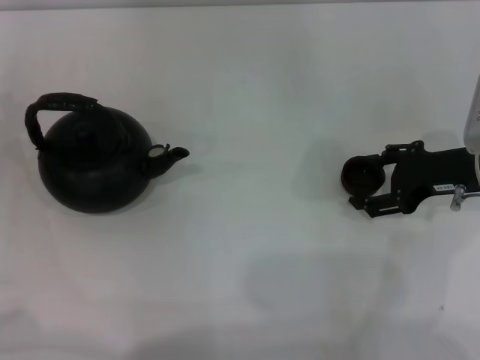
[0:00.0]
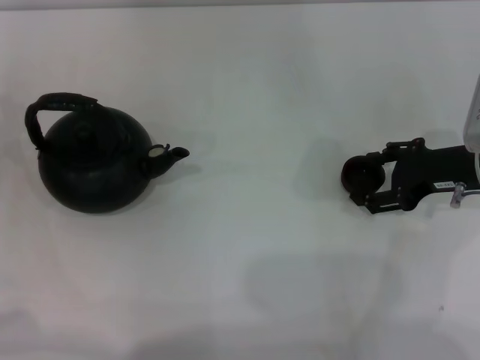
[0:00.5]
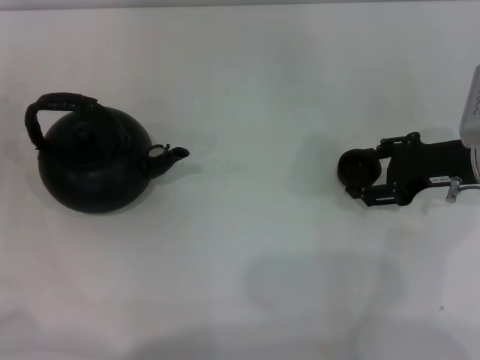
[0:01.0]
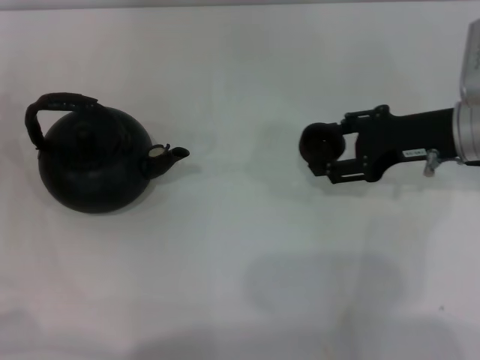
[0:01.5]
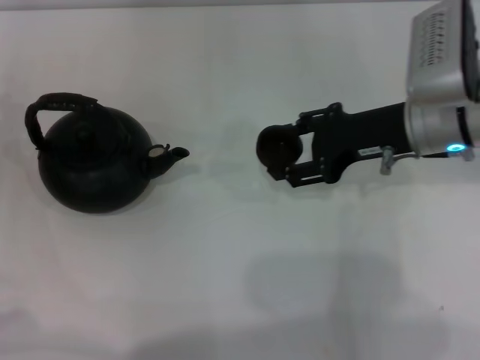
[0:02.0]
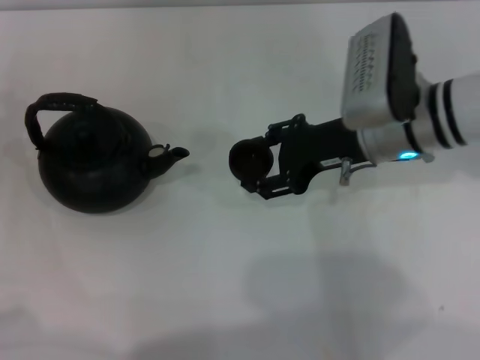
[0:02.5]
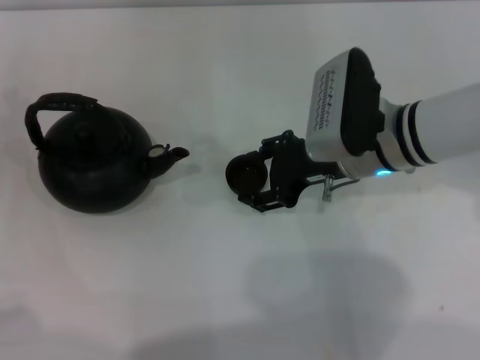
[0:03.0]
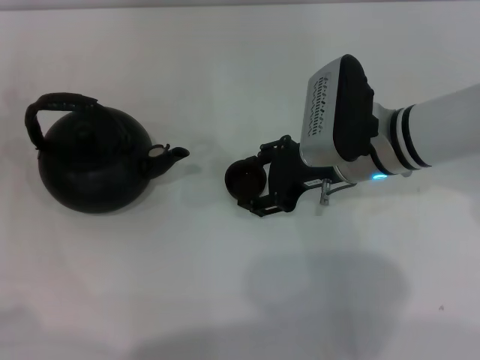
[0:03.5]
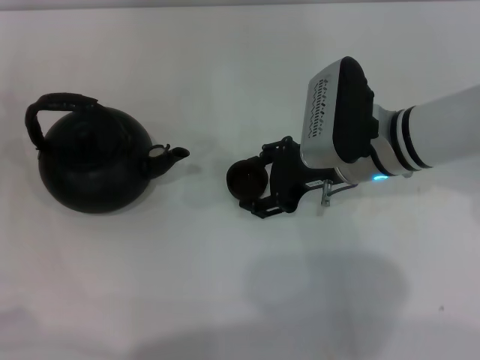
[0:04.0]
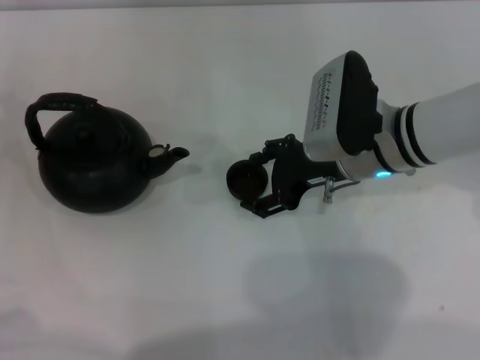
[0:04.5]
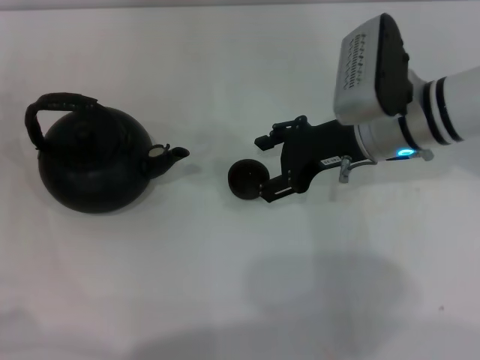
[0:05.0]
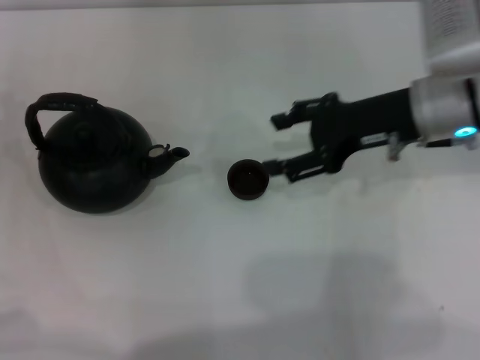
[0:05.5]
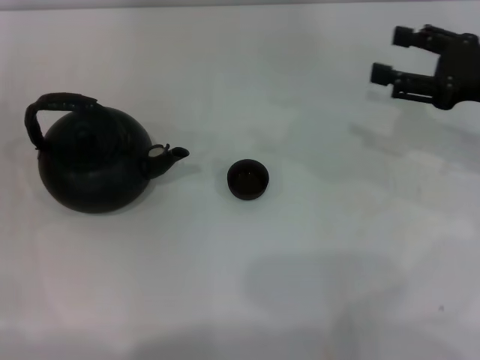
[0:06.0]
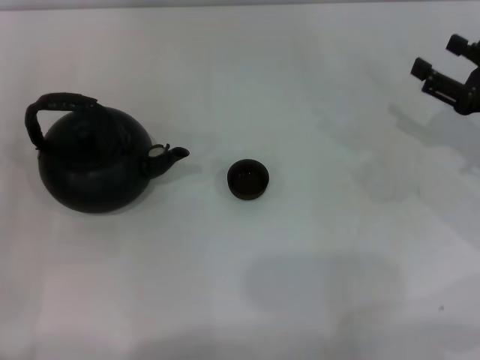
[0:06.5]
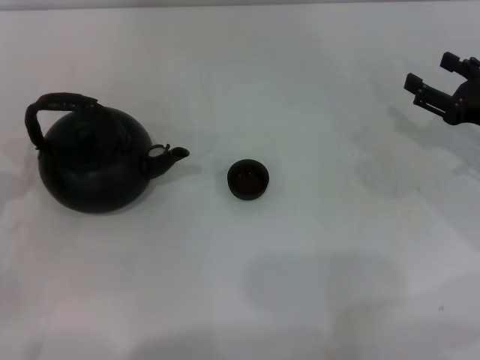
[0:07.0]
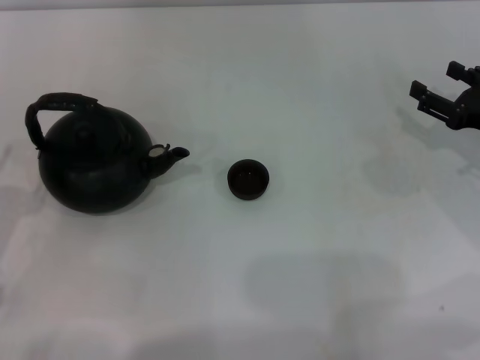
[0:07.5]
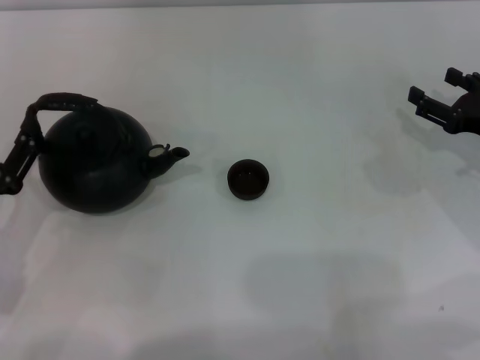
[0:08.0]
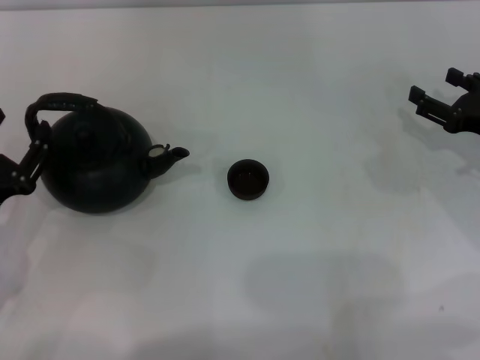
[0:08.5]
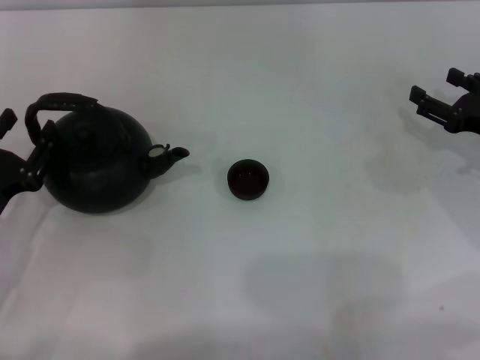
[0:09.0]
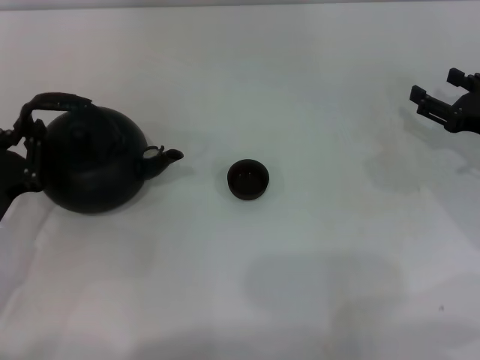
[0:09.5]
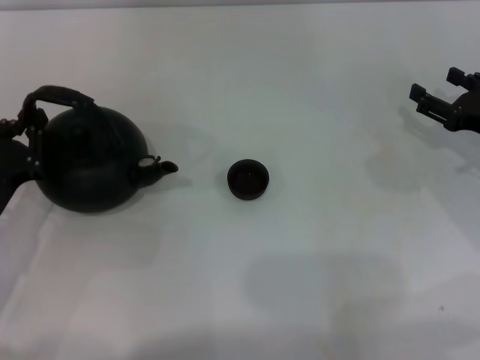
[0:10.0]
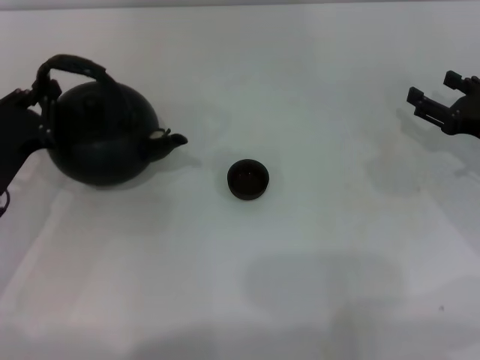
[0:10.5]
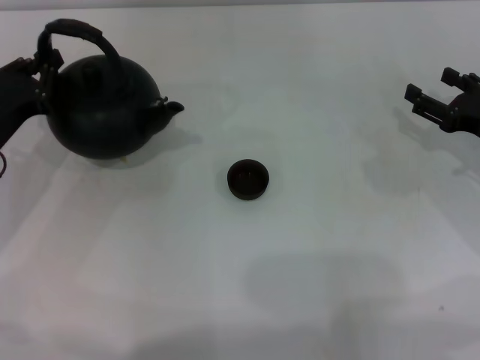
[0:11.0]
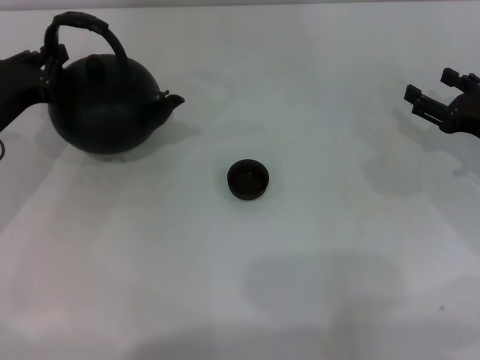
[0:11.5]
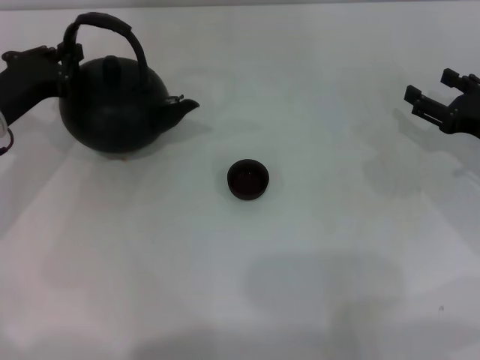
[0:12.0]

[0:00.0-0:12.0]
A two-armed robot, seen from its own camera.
Task of the whole recording: Grasp the handle of the teapot with one hand and pour tea into the teacup.
Step, 0:01.5 to 0:05.0: Place the teacup in the center of view with the right gripper.
0:00.0 to 0:02.0: The right gripper travels to the left by roughly 10 cm, and closes.
0:02.0 to 0:04.0: The right gripper is displaced to the left by about 5 cm.
0:04.0 to 0:06.0: The right gripper goes approximately 15 cm to the right, and opens.
0:06.0 to 0:08.0: The right gripper shifts approximately 10 cm downward. The left gripper is displaced backward and to the right by about 10 cm.
0:08.0 to 0:10.0: The left gripper closes its fingers.
0:10.0 to 0:12.0: The left gripper goes some 15 cm forward and upward.

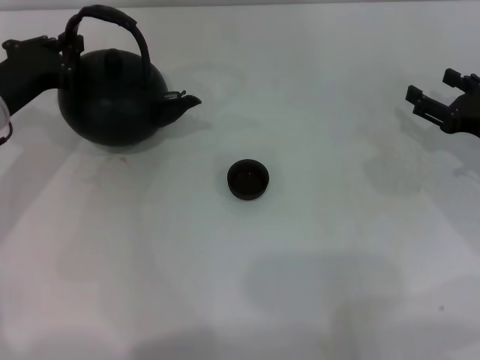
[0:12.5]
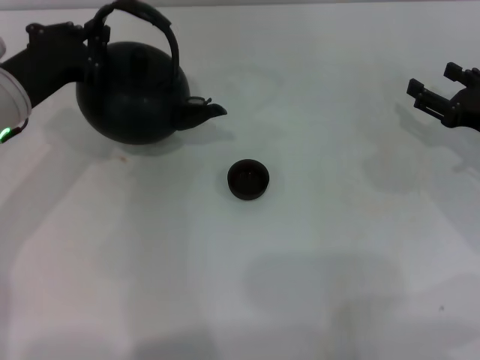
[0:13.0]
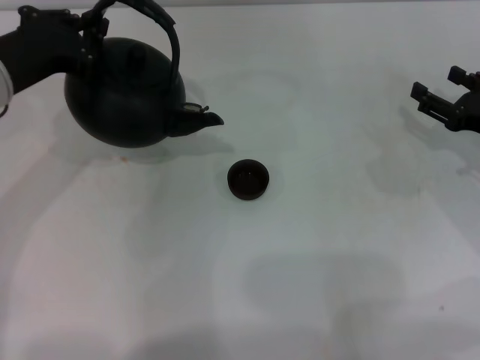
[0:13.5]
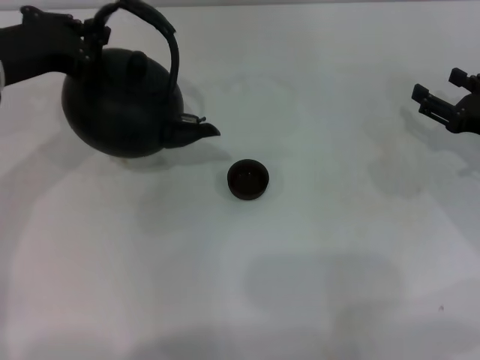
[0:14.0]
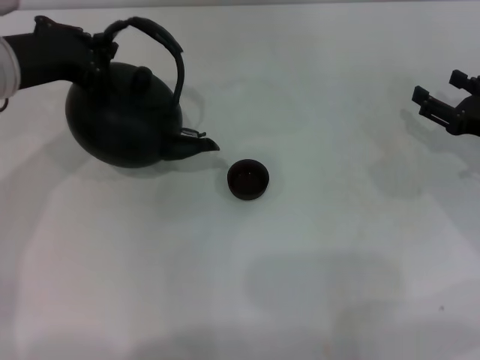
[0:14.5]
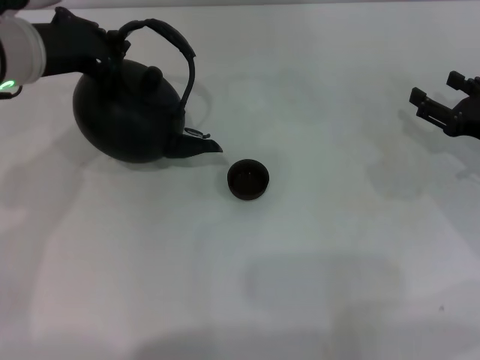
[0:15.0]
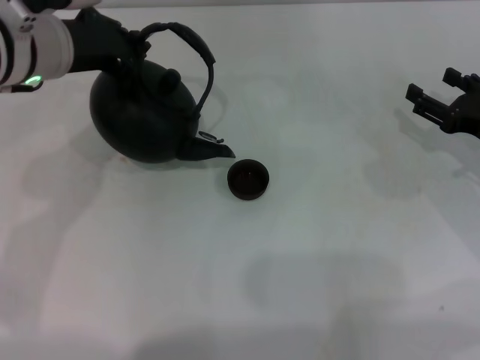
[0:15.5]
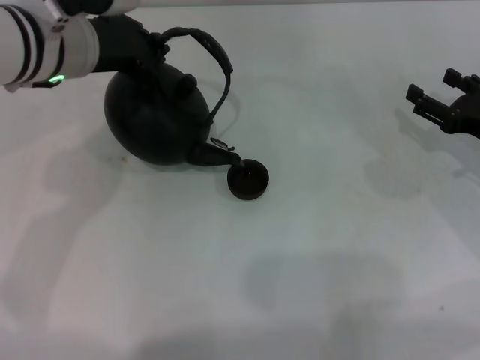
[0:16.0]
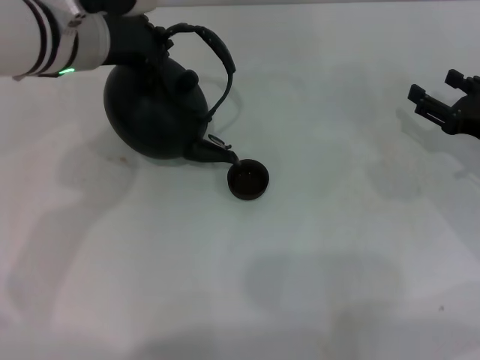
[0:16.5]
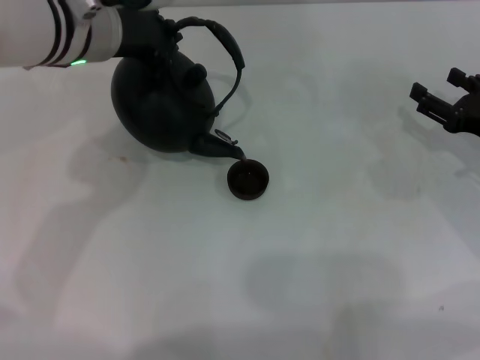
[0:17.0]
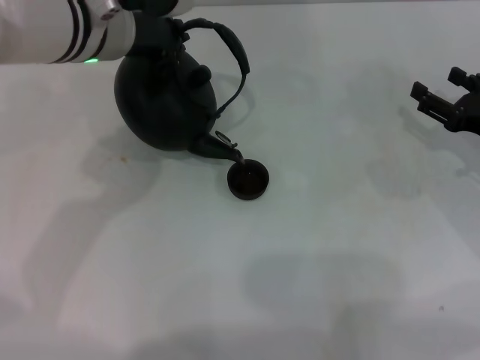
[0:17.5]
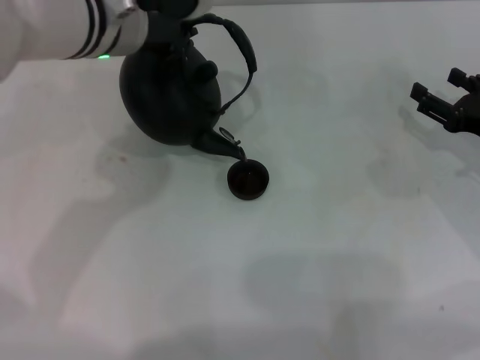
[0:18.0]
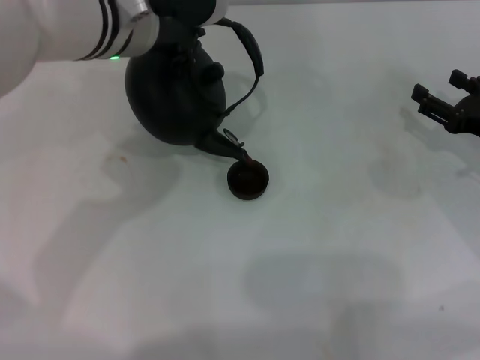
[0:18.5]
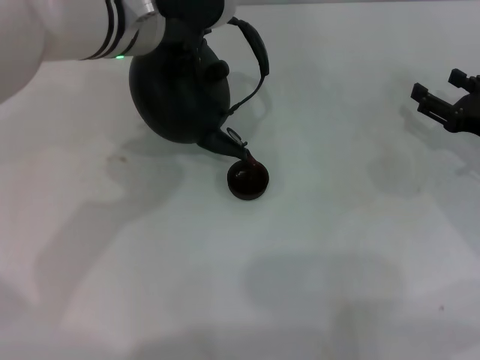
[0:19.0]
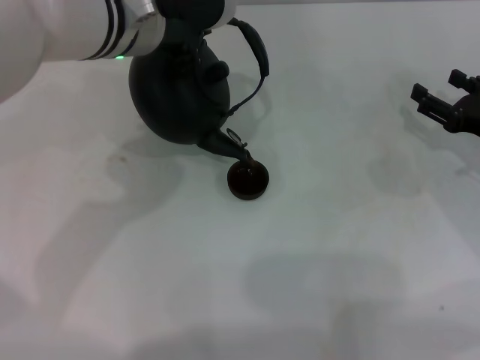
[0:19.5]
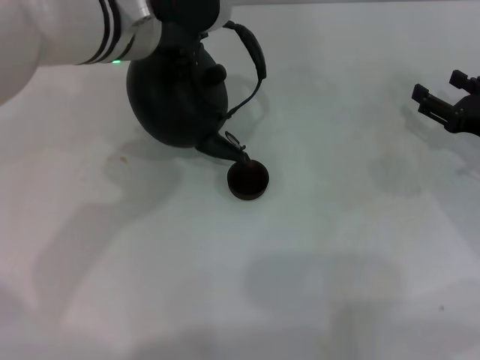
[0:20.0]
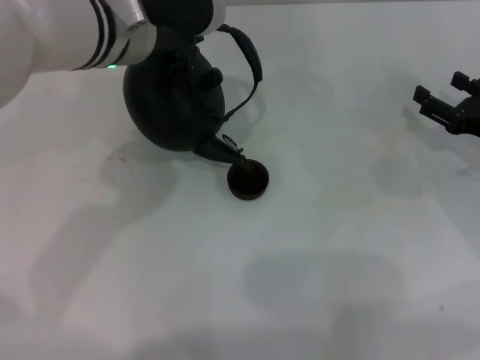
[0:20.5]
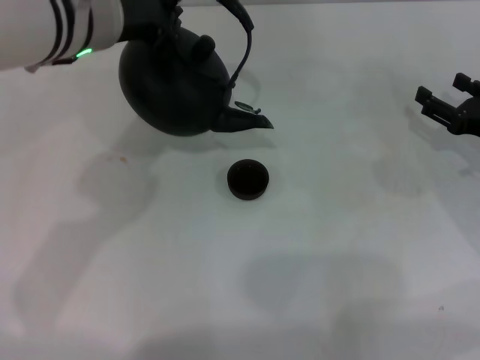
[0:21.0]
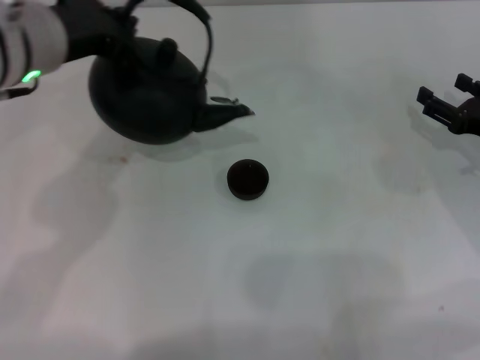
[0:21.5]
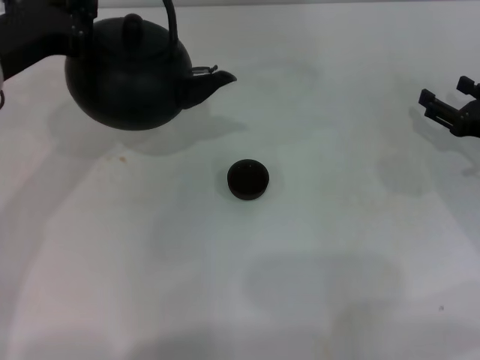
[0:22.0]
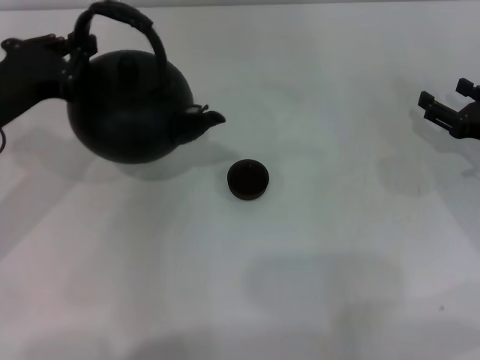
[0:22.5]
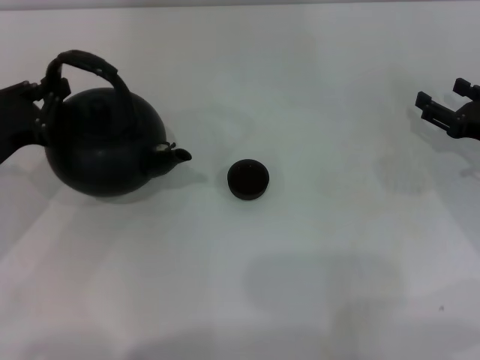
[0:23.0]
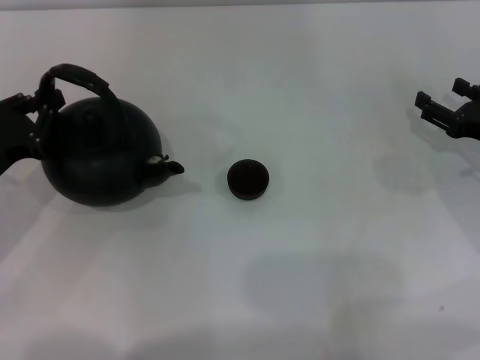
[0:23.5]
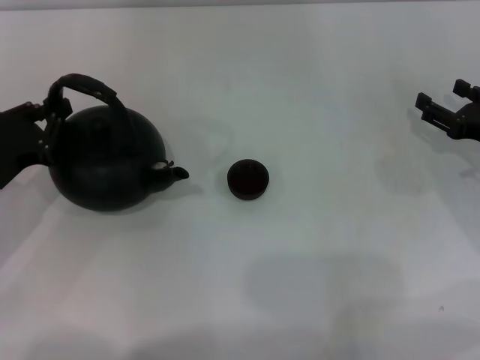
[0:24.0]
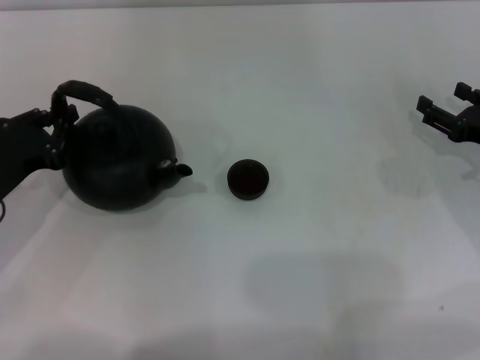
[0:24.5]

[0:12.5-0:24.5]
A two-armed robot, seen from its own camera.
Task of the whole recording: Grasp the handle of the teapot with one hand and pour tea into the teacup.
Step, 0:13.5 to 0:21.0: Pour tea into the teacup with the left gripper.
0:12.5 to 0:14.5: The left gripper heads upward, covering approximately 10 cm.
0:14.5 to 0:16.5: The left gripper is displaced to the right by about 10 cm.
0:16.5 to 0:18.5: The grippers make only small movements.
0:18.5 to 0:20.5: Both grippers stay put.
0:20.5 to 0:22.5: The left gripper heads to the left, backward and downward, covering approximately 20 cm.
0:22.5 to 0:24.5: The left gripper goes about 10 cm downward.

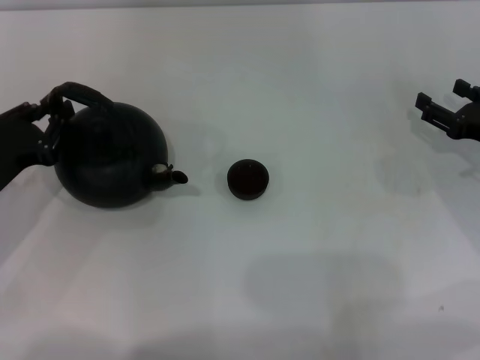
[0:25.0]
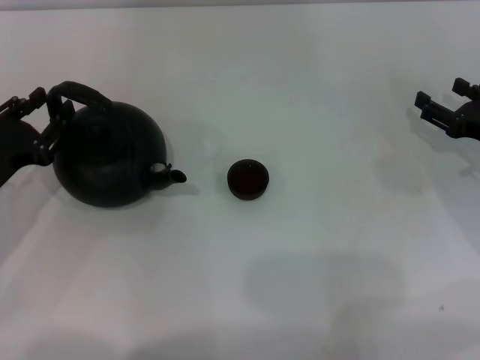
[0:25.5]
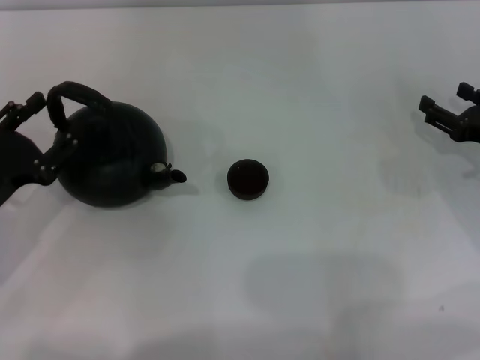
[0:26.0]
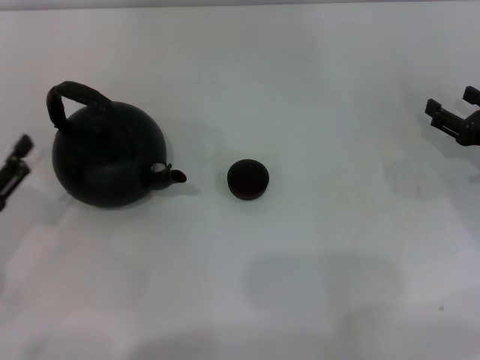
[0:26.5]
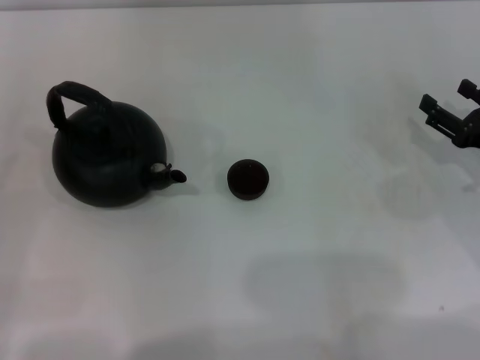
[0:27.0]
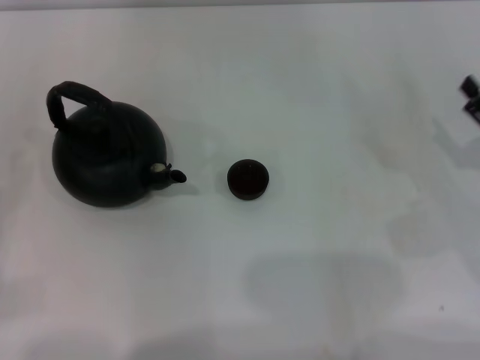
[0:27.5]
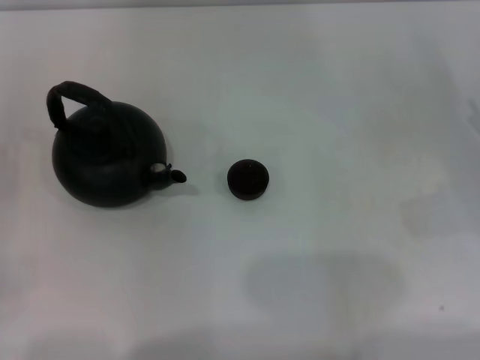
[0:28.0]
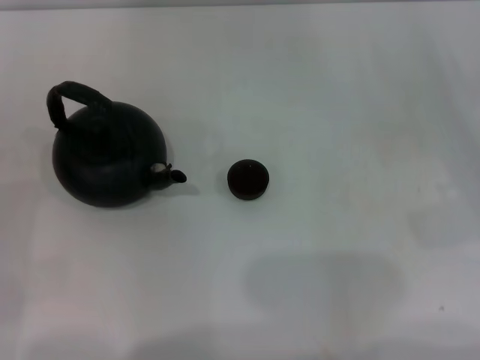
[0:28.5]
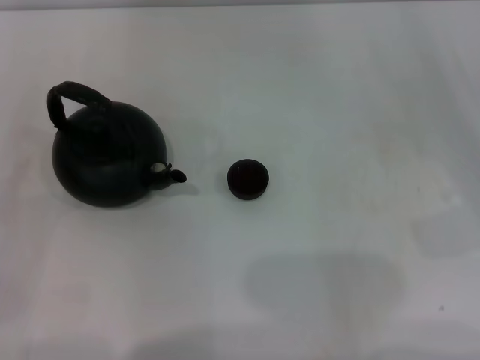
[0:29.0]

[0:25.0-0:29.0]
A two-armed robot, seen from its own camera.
Task of the whole recording: Grasp the handle of the teapot with one hand and pour tea into the teacup.
0:25.0 to 0:27.0: The left gripper is displaced backward and to the left by approximately 10 cm, and opens up.
0:27.0 to 0:29.0: The right gripper ends up approximately 5 cm from where it was.
